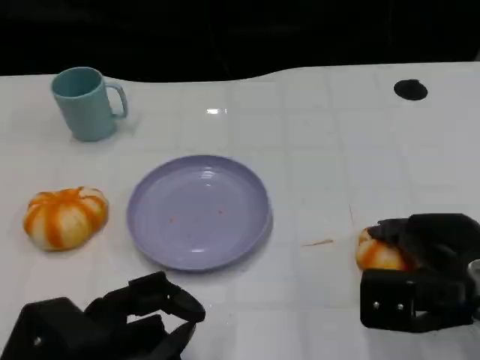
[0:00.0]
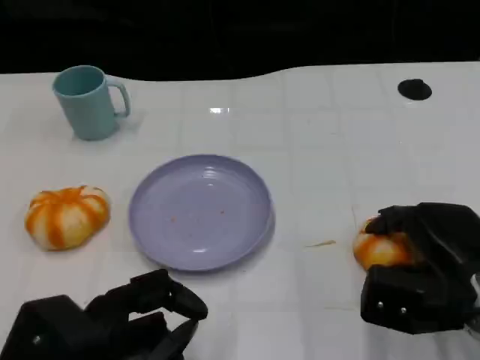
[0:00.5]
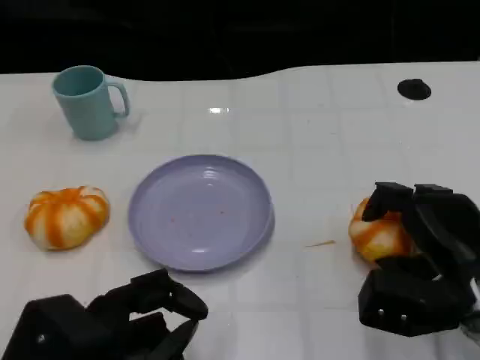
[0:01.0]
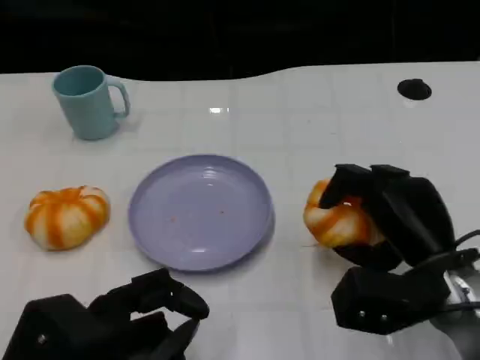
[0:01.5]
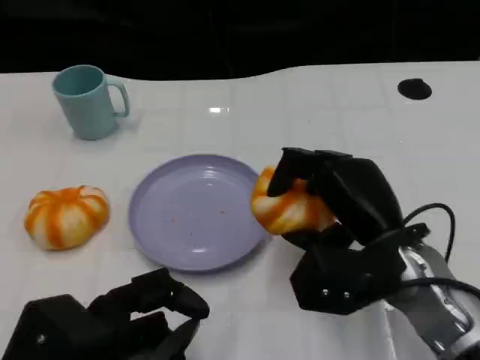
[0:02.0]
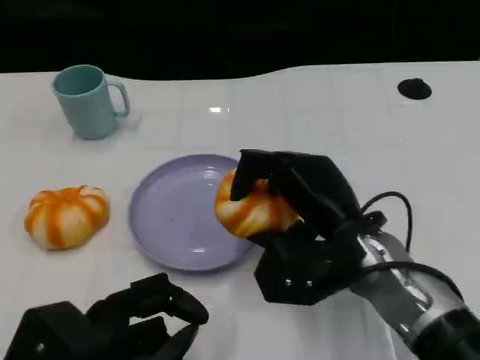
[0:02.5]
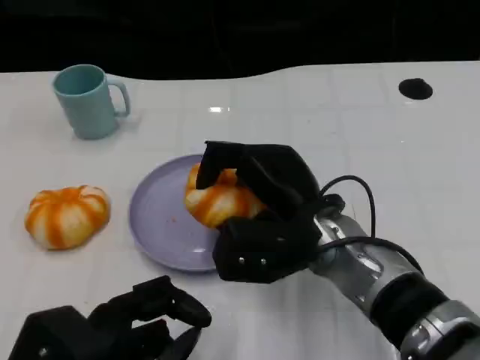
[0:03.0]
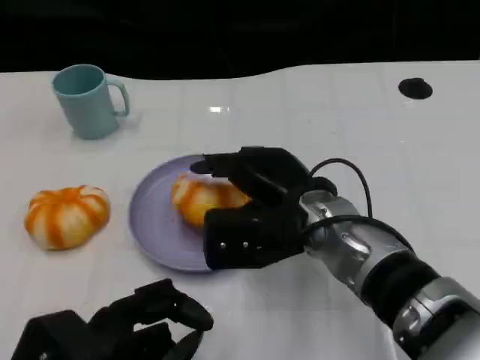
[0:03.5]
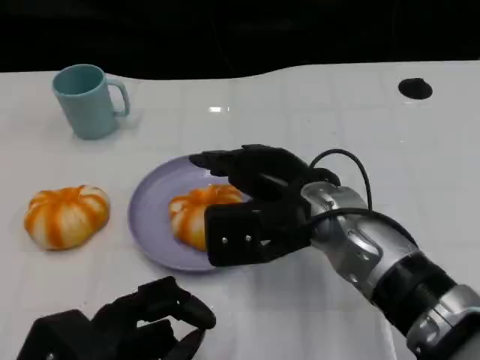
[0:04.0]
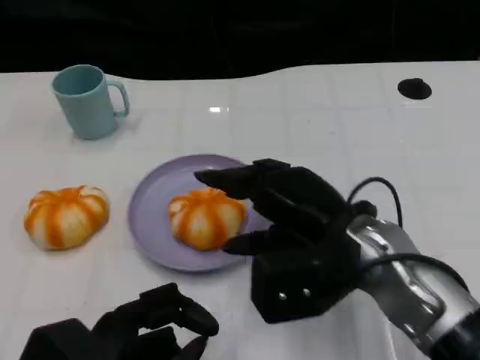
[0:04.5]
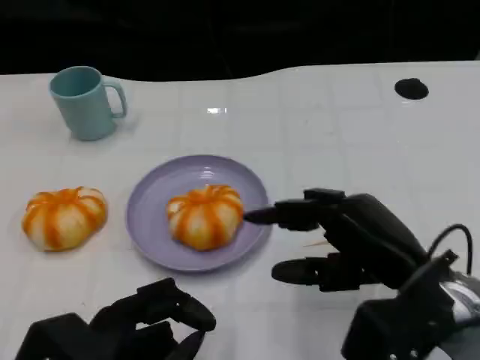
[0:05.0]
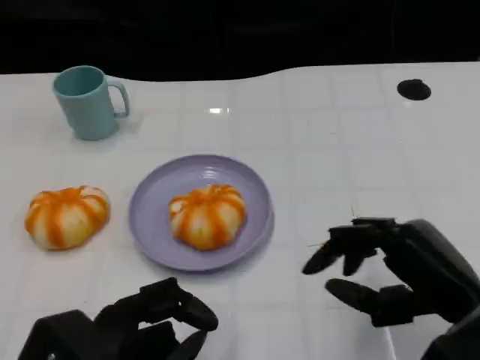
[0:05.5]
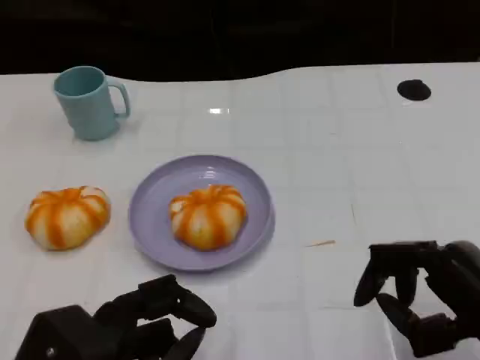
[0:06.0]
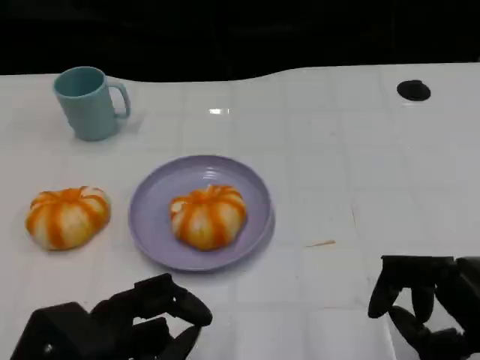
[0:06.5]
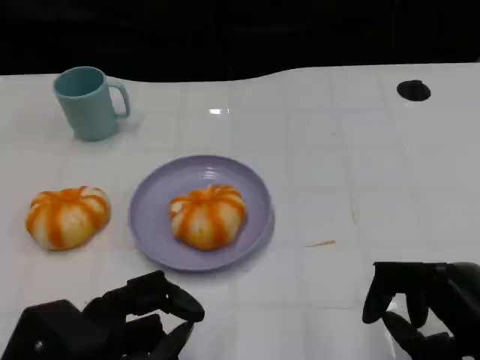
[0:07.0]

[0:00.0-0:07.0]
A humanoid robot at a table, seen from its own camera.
Task of the whole recording: Grasp the bread from the table and place it into the plate.
0:00.0 to 0:02.0: The right hand heads to the left, covering roughly 10 cm.
0:02.0 to 0:03.5: The right hand travels to the left by roughly 10 cm.
0:03.5 to 0:05.0: The right hand is displaced to the right and backward by approximately 15 cm.
0:05.0 to 0:07.0: The right hand travels backward and to the right by roughly 10 cm.

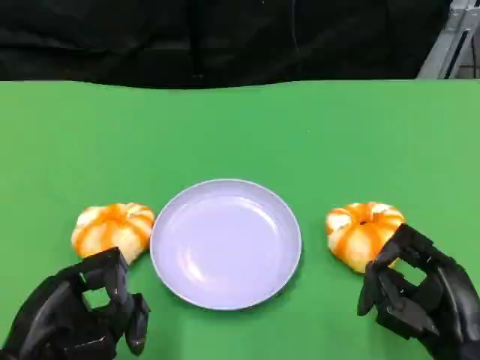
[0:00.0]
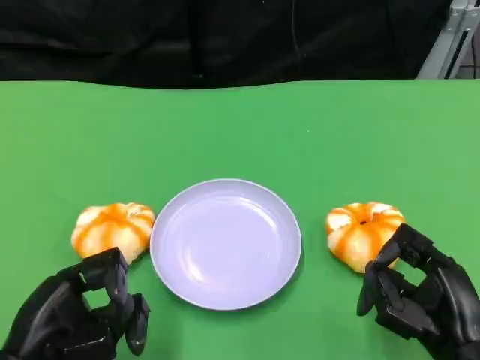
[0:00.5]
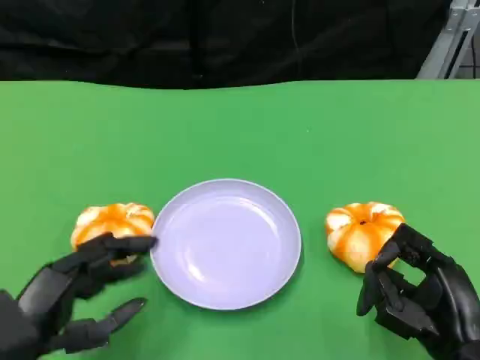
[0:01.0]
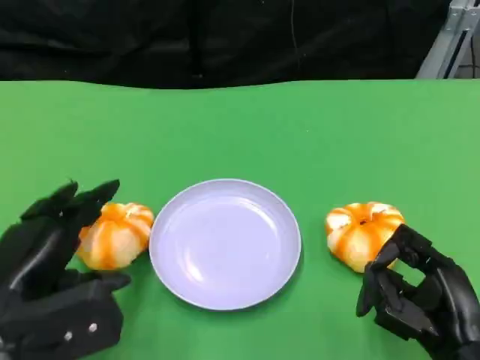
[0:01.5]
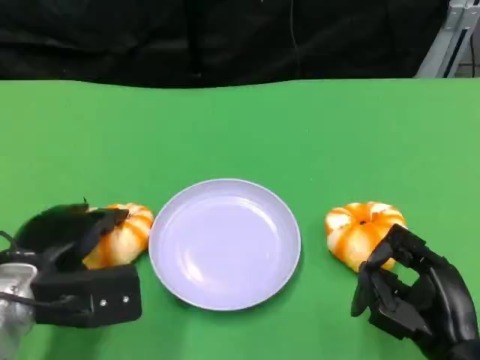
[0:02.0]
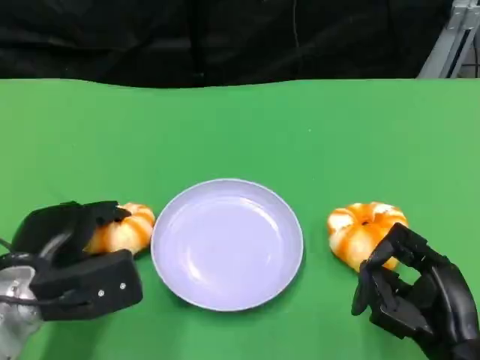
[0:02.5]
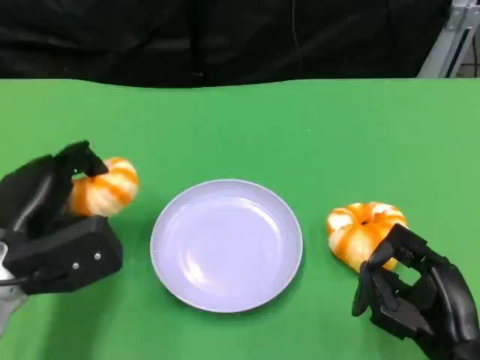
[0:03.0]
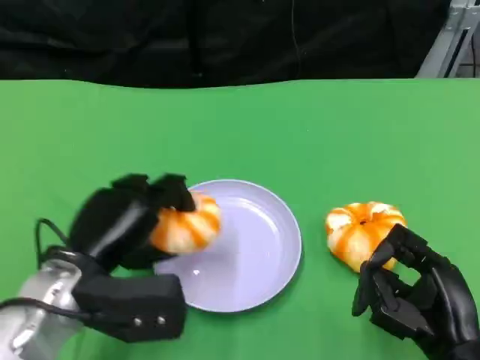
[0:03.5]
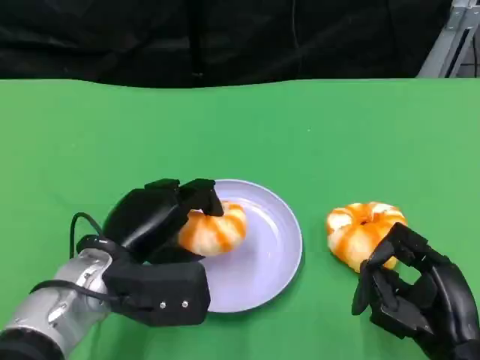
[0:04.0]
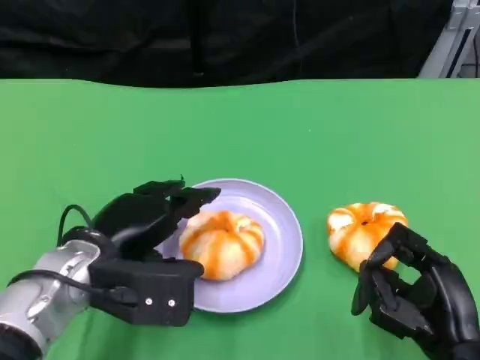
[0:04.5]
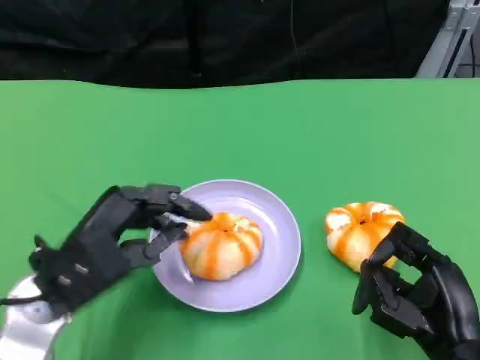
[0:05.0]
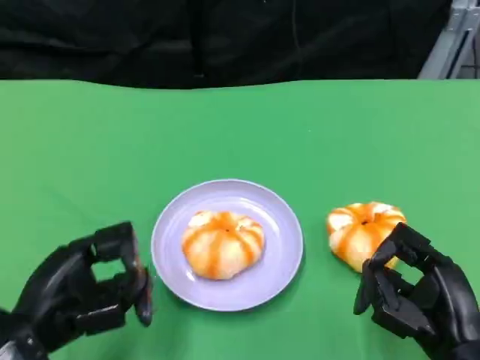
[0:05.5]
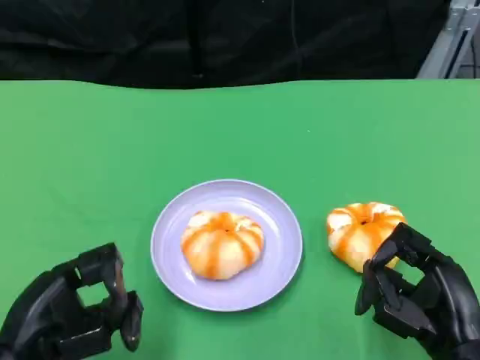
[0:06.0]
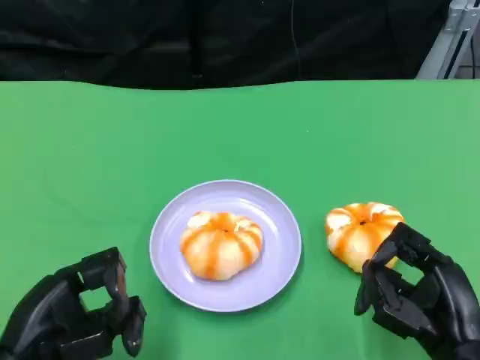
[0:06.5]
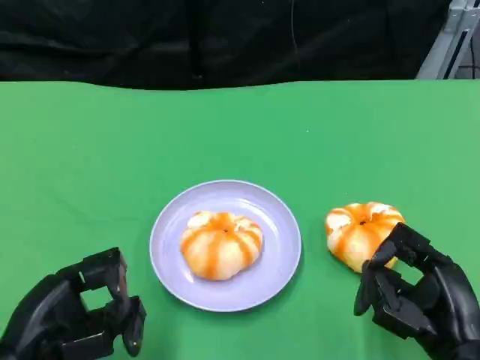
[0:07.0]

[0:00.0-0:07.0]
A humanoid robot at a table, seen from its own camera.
Task of the whole recording: Grasp the bread from the table and place it into the plate.
0:00.0 to 0:02.0: The left hand goes about 10 cm forward.
0:02.0 to 0:03.5: The left hand heads to the right, covering roughly 5 cm.
0:05.0 to 0:07.0: The left hand heads backward, covering approximately 5 cm.

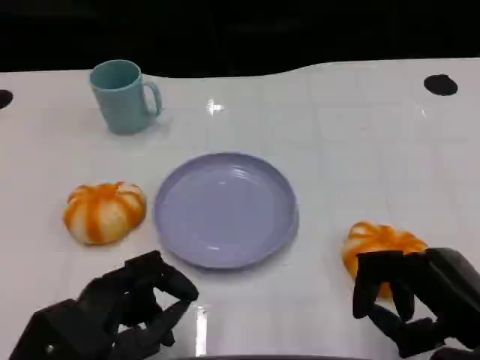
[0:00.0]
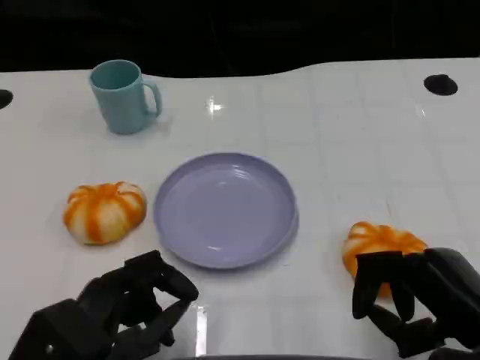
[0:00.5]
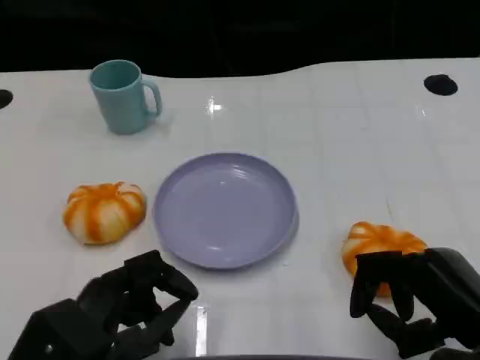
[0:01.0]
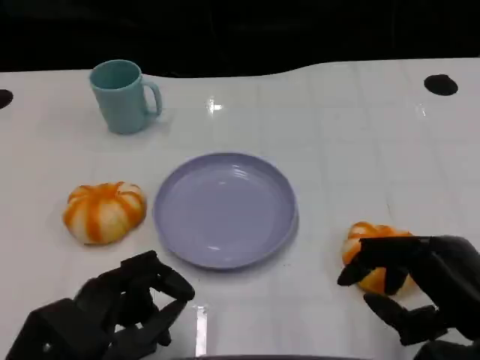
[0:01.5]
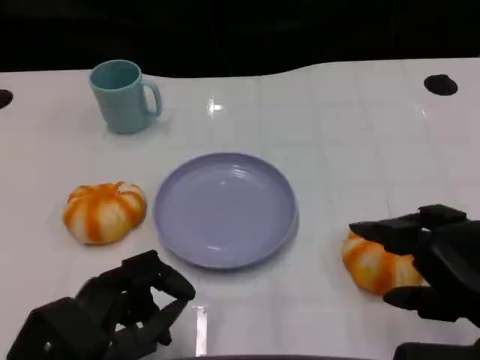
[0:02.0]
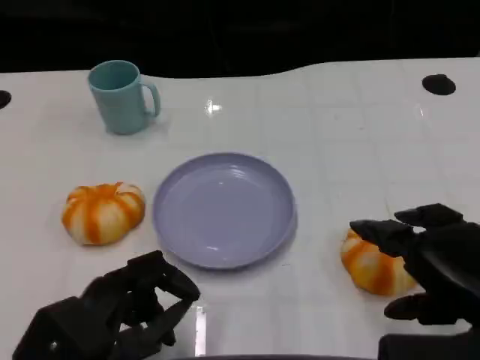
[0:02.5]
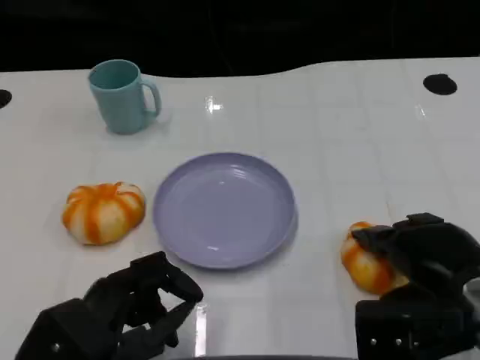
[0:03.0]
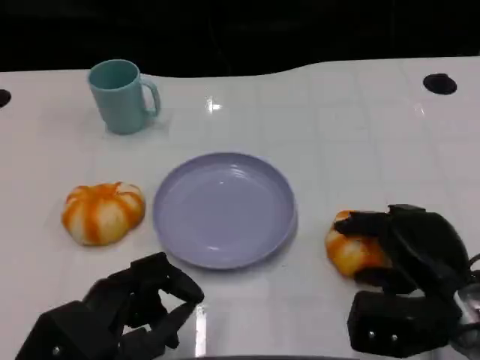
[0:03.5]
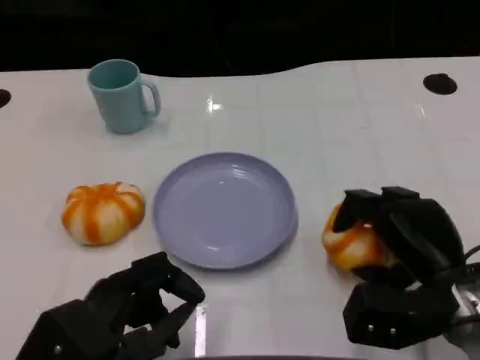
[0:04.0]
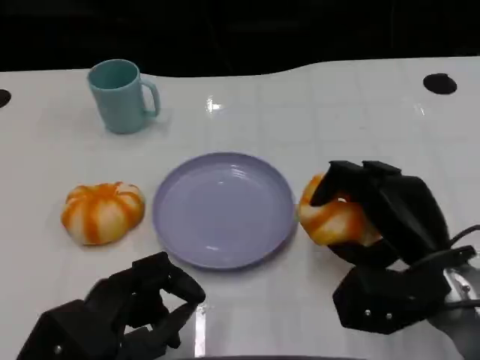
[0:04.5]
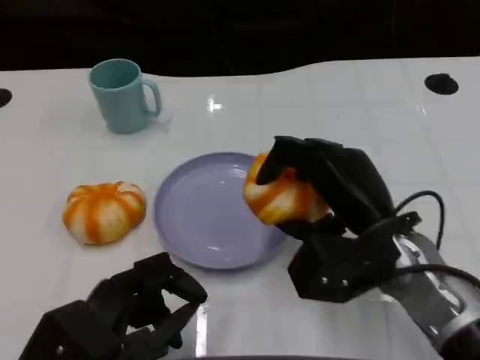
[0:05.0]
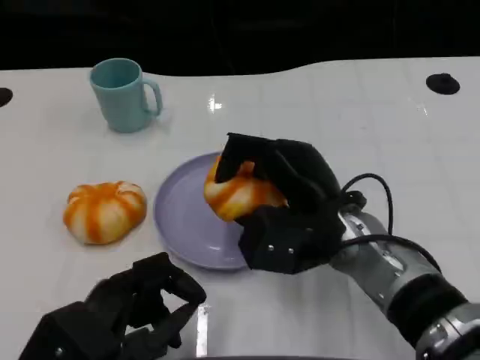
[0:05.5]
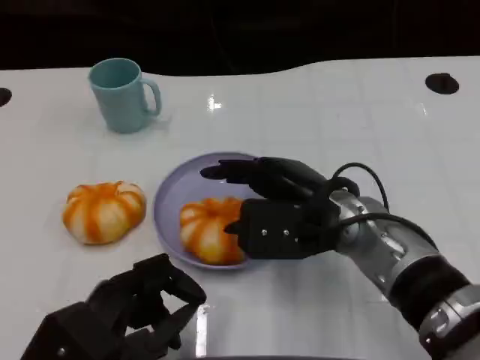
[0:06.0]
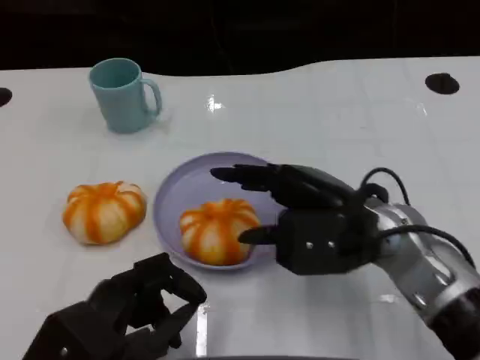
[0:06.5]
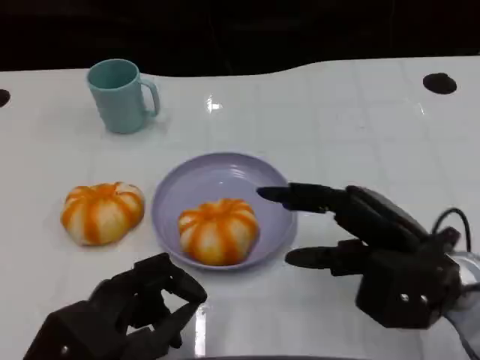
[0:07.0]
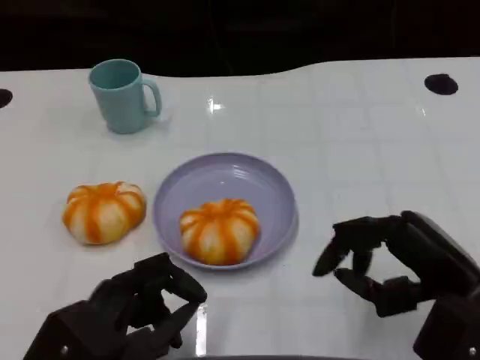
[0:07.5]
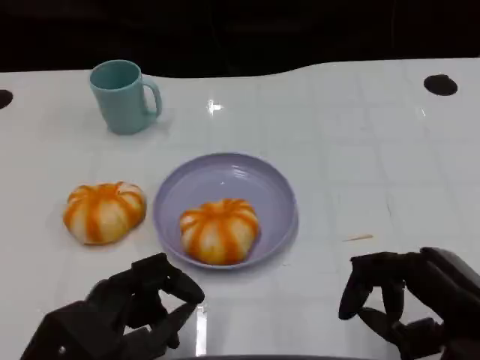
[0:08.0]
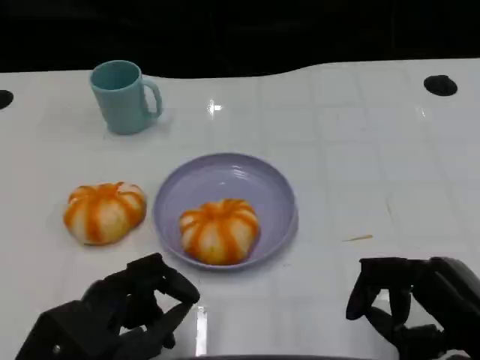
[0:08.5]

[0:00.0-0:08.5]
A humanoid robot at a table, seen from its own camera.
Task of the whole recording: Grasp the bread from the table and place it into the plate.
0:02.0 to 0:04.0: The right hand moves forward and downward, roughly 10 cm.
0:04.0 to 0:06.5: The right hand moves to the left and upward, approximately 10 cm.
0:06.5 to 0:08.5: The right hand shifts some 15 cm backward and to the right.

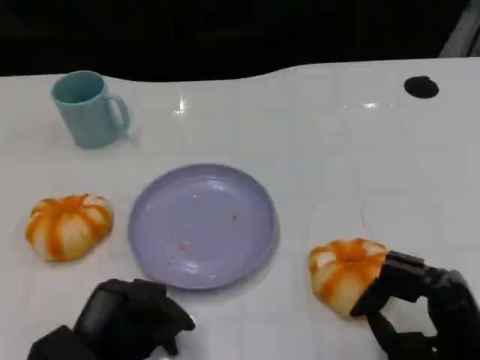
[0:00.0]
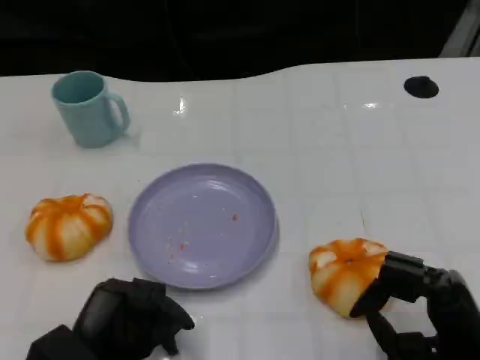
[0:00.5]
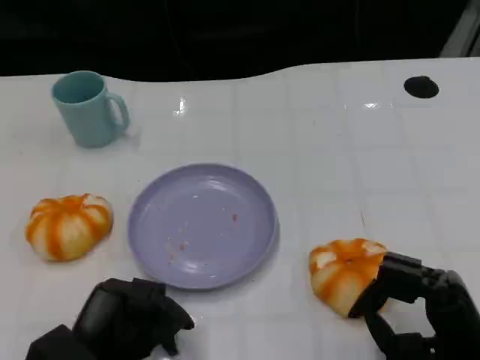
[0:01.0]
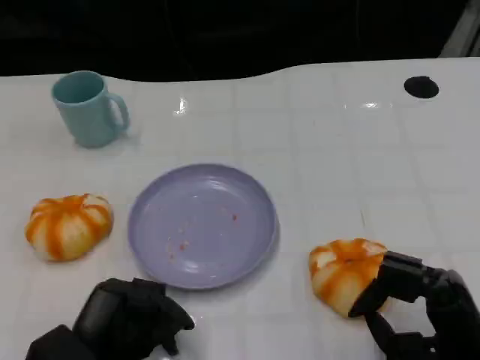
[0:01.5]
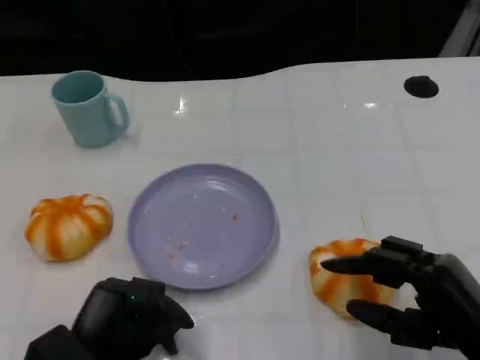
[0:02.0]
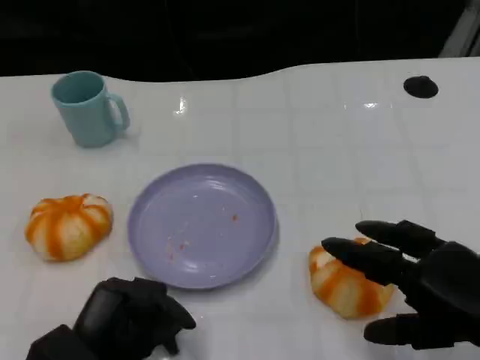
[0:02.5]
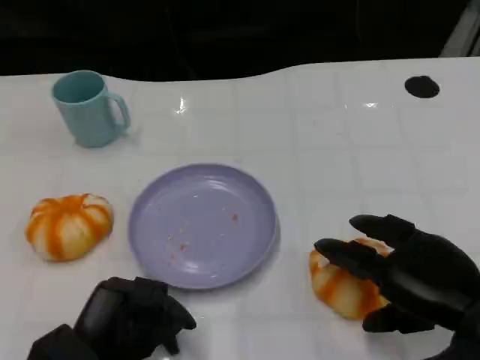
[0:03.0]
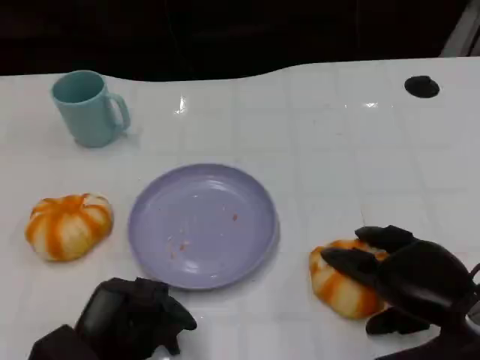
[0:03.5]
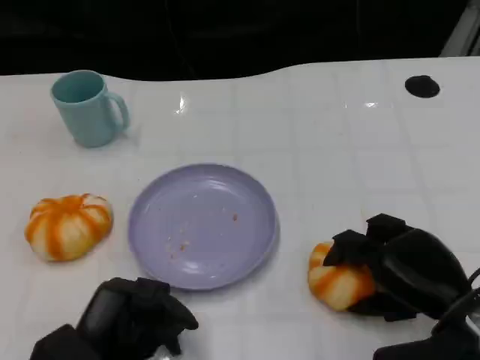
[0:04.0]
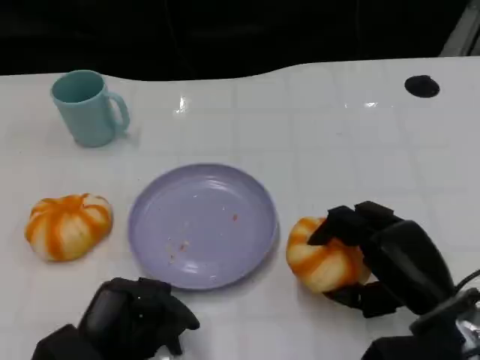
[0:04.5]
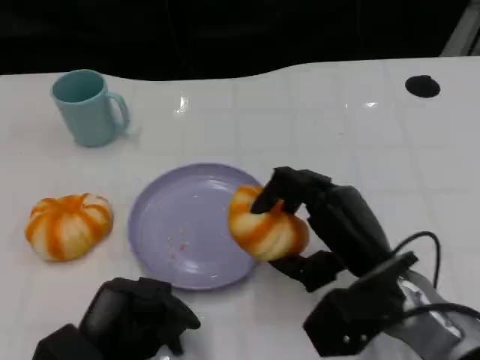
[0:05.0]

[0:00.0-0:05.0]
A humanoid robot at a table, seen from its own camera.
Task of the whole recording: Grasp the bread from the table and place it into the plate.
0:00.0 to 0:02.5: The right hand moves upward, about 10 cm.
0:02.5 to 0:05.0: The right hand is displaced to the left and forward by about 15 cm.
